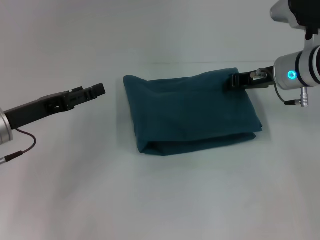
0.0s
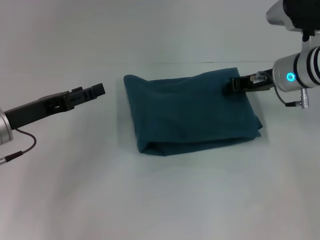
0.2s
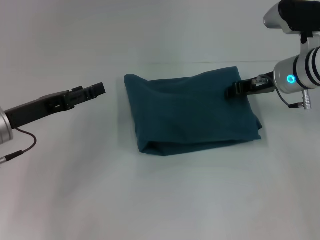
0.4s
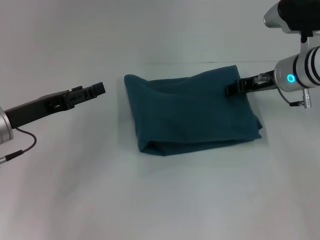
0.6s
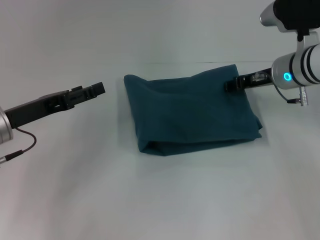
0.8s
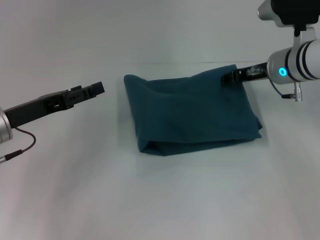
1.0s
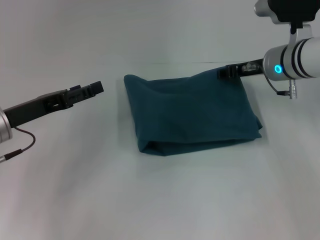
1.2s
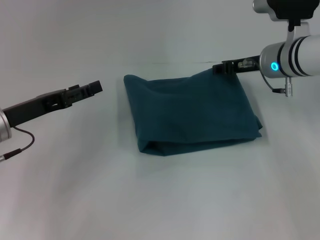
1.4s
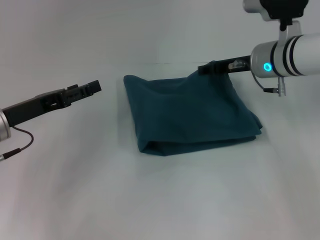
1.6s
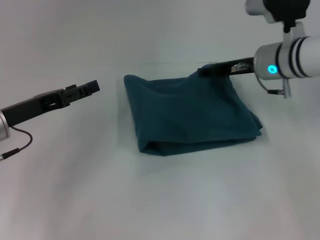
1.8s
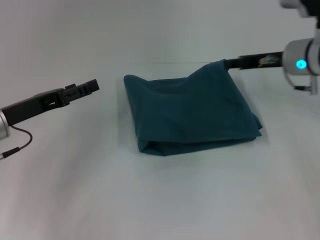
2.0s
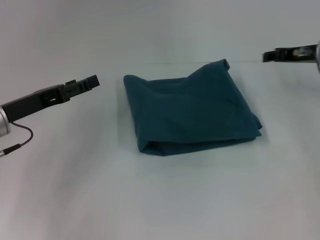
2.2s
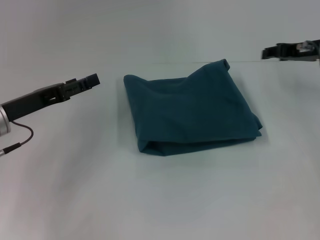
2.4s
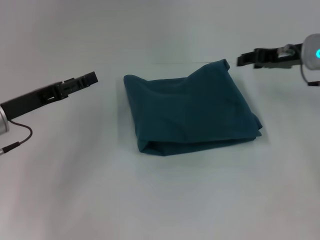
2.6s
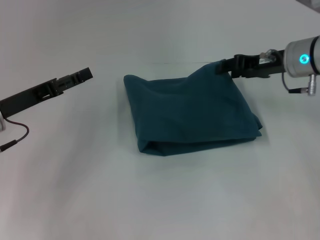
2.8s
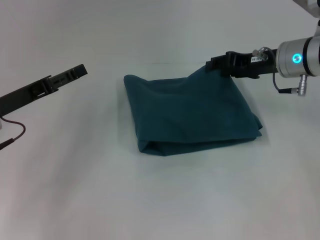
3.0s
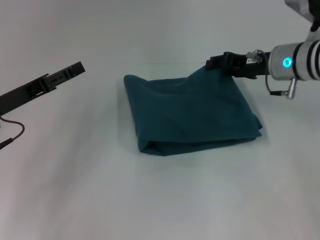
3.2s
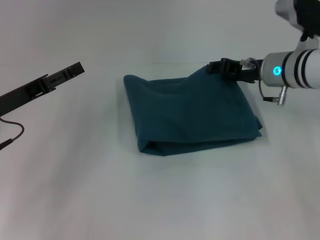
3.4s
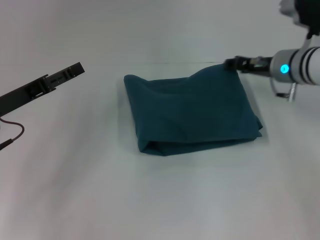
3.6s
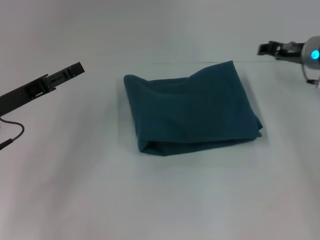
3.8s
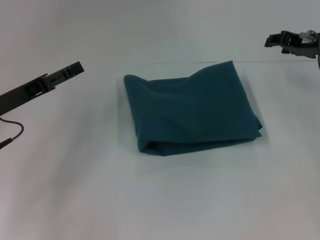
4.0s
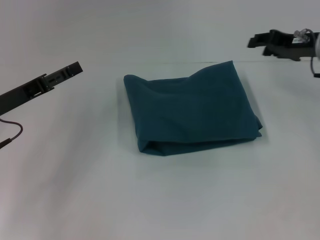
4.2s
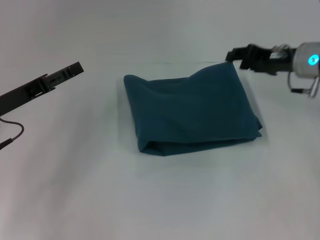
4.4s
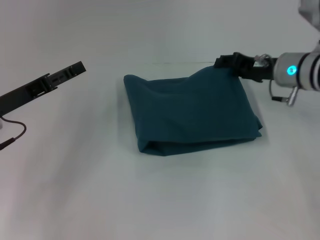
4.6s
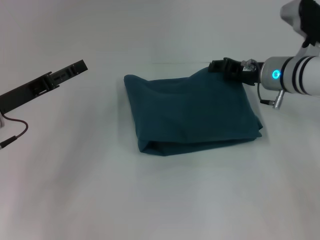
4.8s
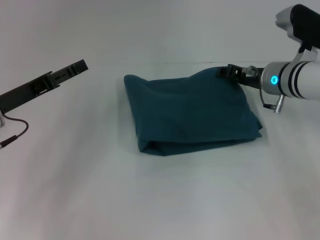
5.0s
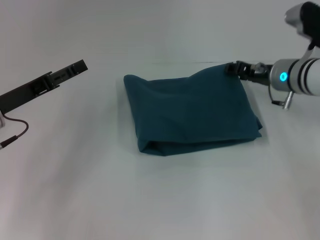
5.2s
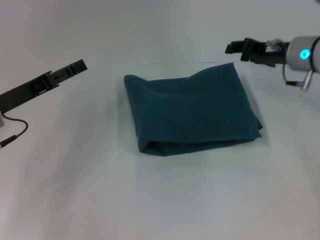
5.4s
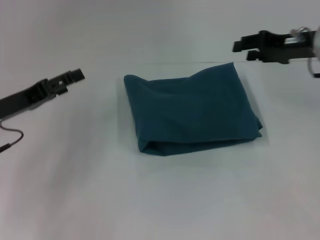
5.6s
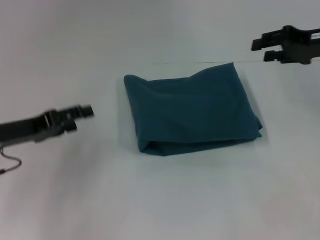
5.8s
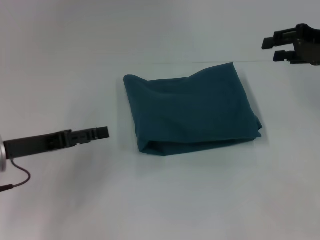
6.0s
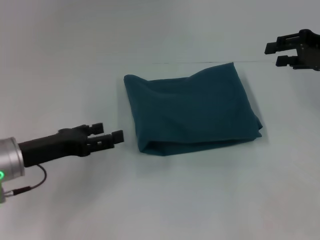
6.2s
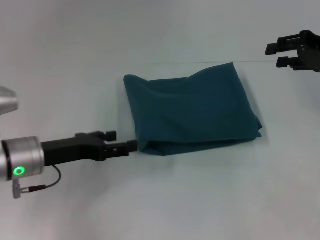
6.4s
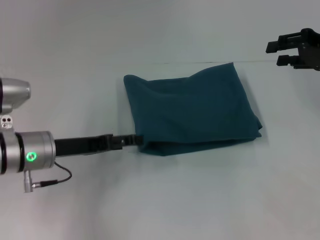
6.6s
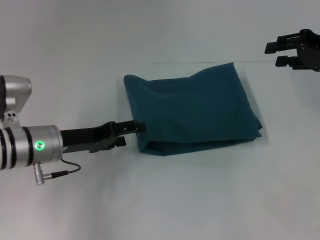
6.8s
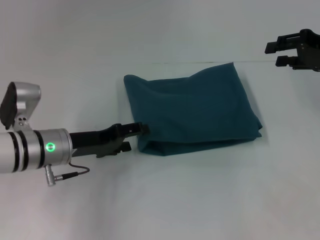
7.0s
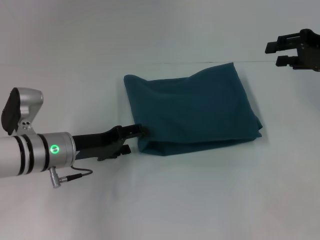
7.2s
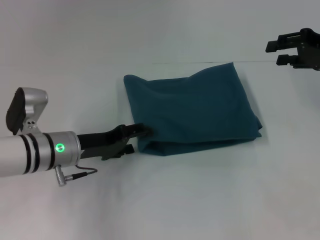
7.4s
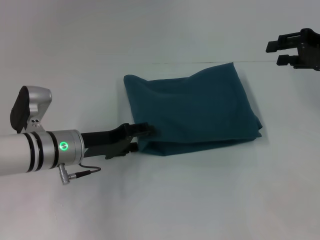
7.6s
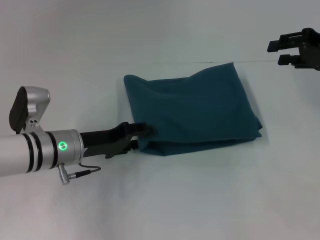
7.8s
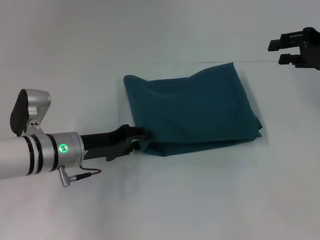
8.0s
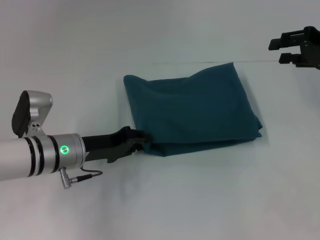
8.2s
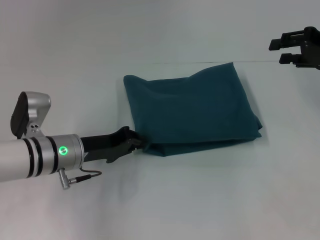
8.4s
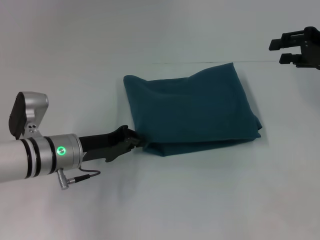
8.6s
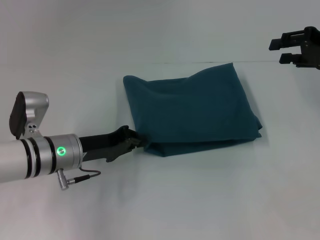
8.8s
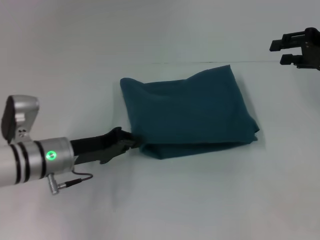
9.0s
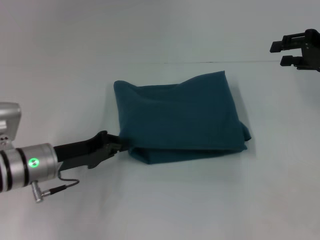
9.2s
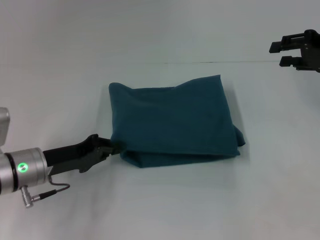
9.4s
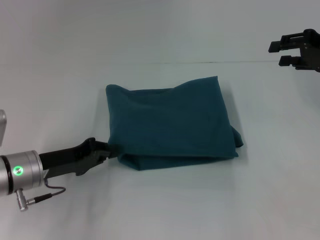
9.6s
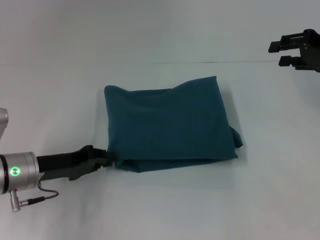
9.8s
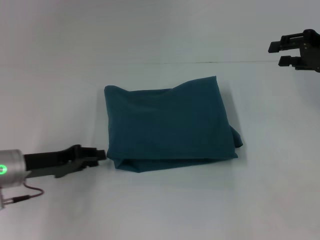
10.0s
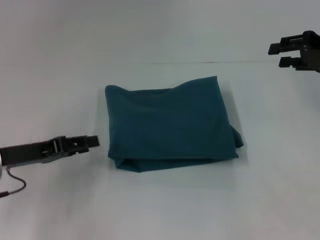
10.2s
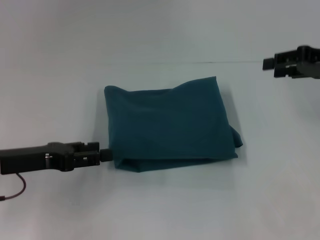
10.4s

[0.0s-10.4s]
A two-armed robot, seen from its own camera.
0.0s to 1.4s: The right gripper opens up.
1.4s to 3.0s: The right gripper goes to the right and returns, approximately 10 cm each way.
4.4s to 6.0s: The right gripper is displaced to the right and upward by about 10 cm.
6.0s to 7.4s: The left gripper heads to the right and downward, covering some 10 cm.
7.4s to 9.0s: The left gripper closes its fingers.
9.0s to 10.4s: The left gripper travels to the left and upward by roughly 10 cm, and opens up.

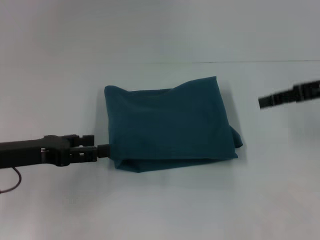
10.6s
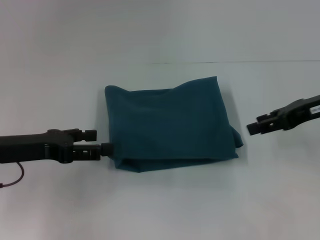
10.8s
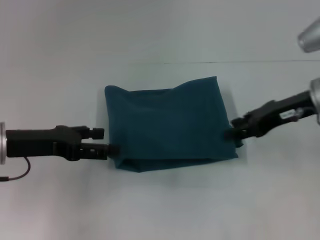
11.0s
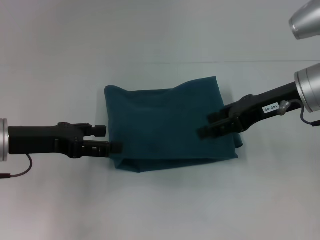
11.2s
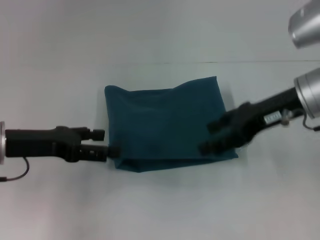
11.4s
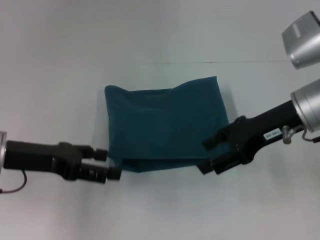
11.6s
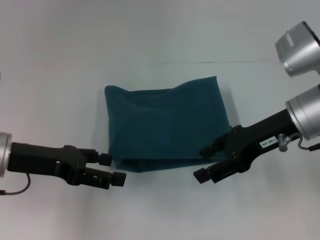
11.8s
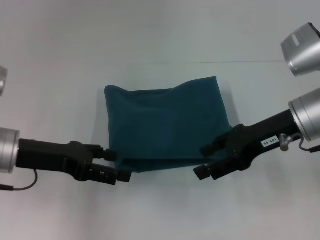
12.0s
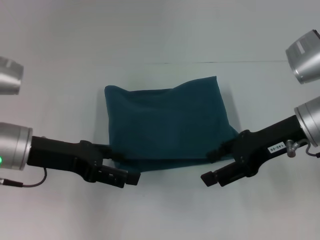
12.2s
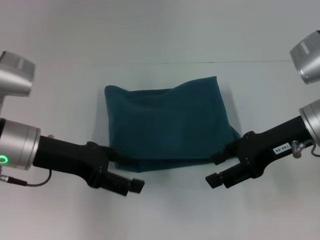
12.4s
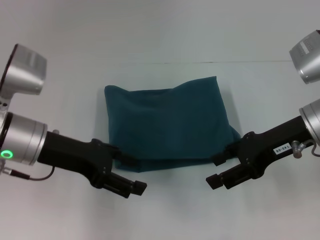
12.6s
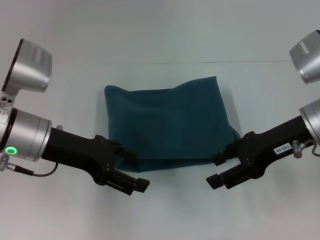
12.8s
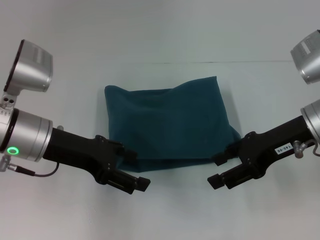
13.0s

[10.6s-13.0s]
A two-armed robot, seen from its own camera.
10.6s to 11.8s: The right gripper is displaced to the left by about 10 cm.
11.8s to 13.0s: The left gripper moves to the right, approximately 5 cm.

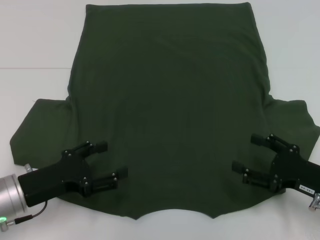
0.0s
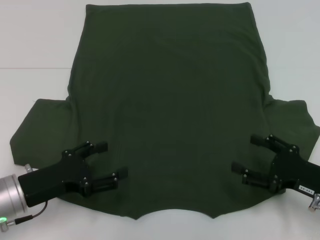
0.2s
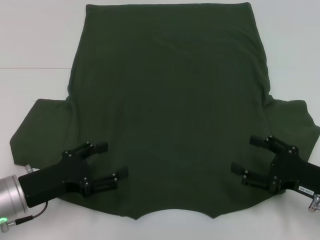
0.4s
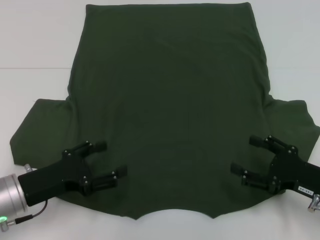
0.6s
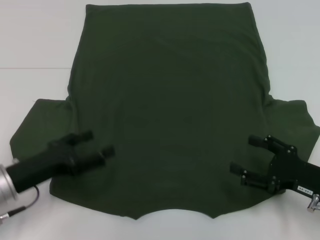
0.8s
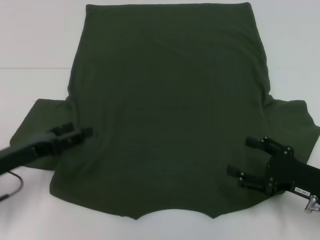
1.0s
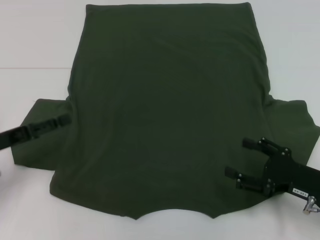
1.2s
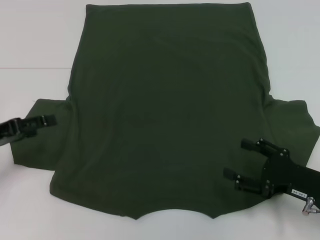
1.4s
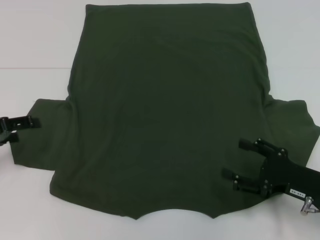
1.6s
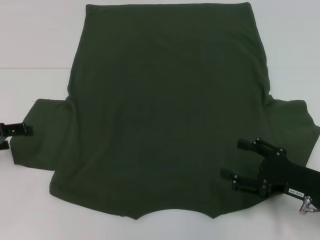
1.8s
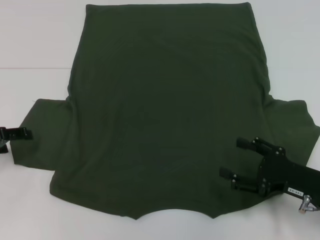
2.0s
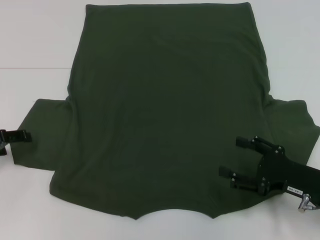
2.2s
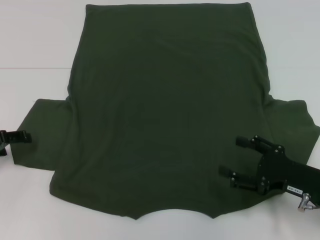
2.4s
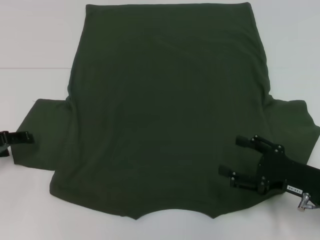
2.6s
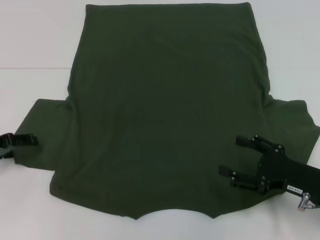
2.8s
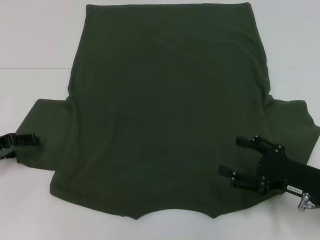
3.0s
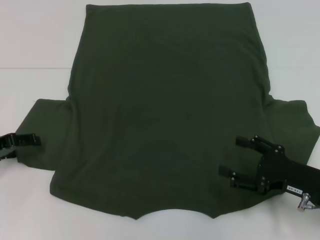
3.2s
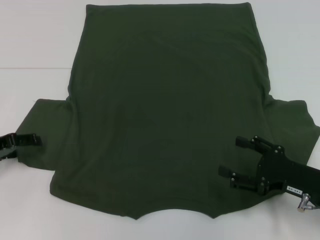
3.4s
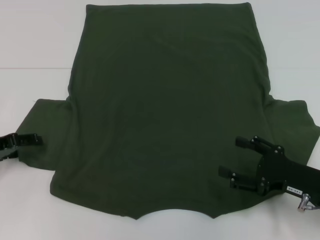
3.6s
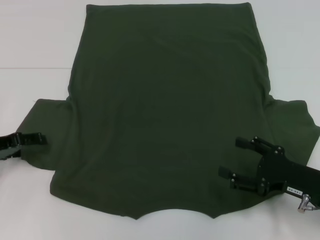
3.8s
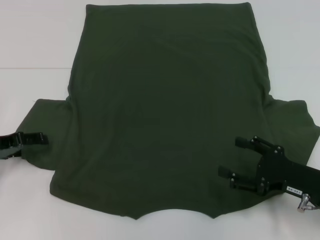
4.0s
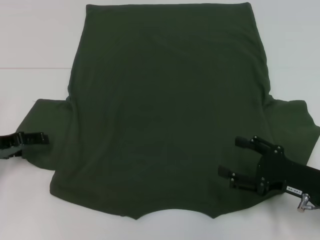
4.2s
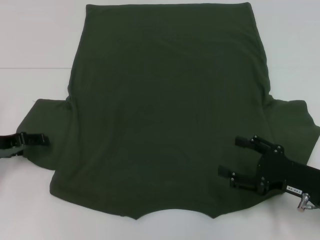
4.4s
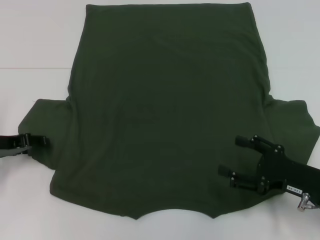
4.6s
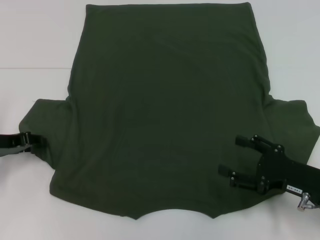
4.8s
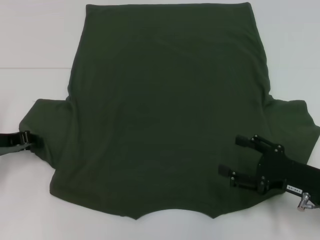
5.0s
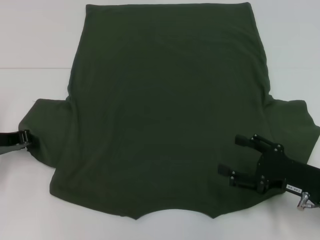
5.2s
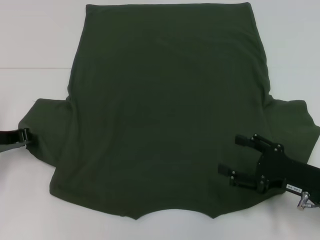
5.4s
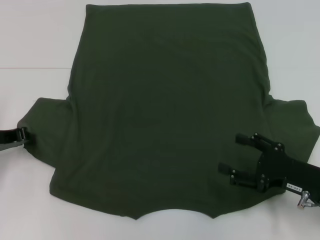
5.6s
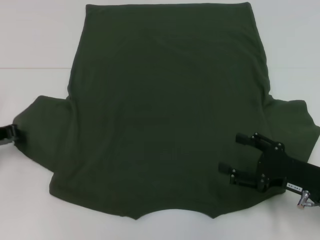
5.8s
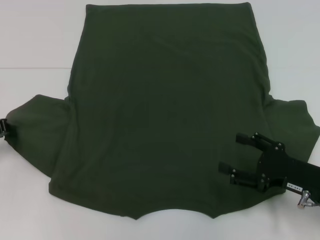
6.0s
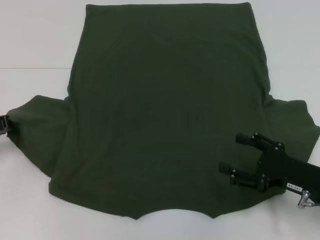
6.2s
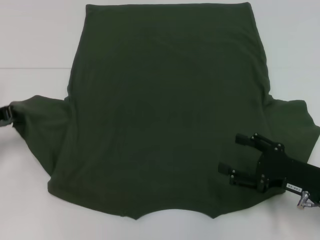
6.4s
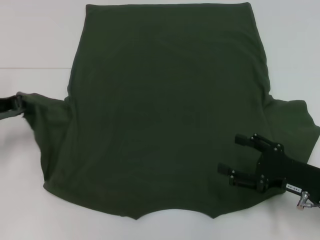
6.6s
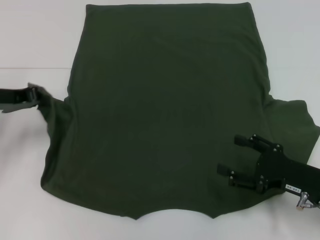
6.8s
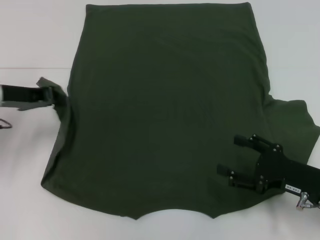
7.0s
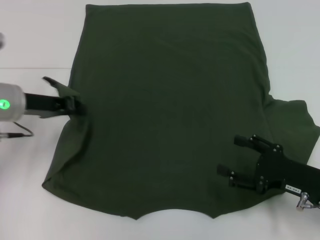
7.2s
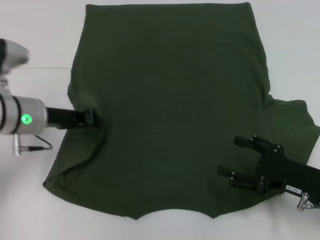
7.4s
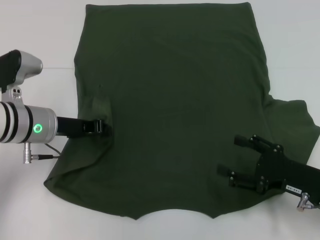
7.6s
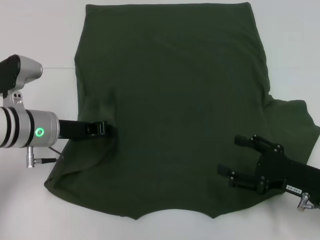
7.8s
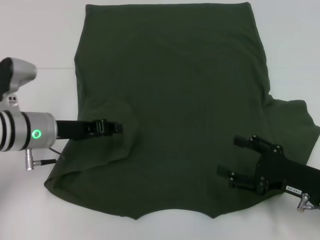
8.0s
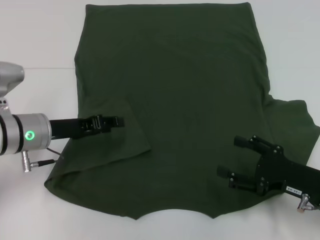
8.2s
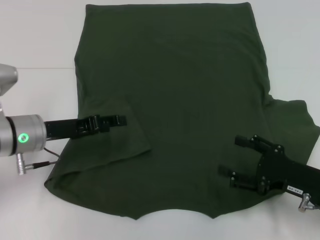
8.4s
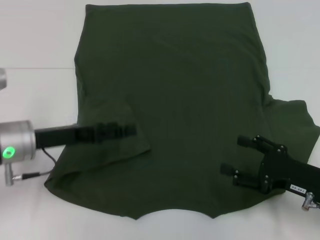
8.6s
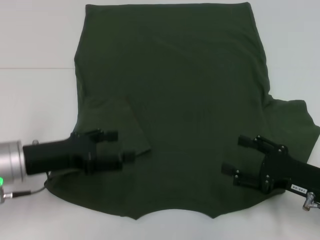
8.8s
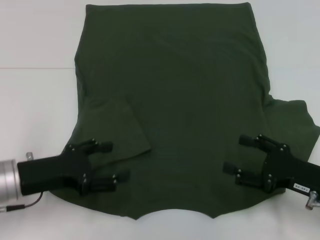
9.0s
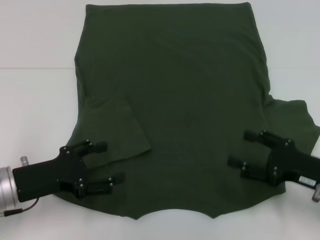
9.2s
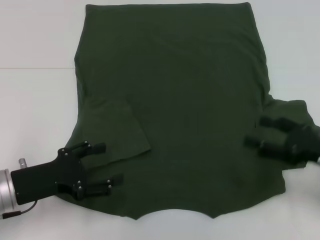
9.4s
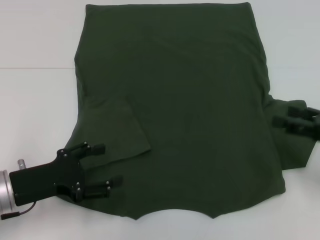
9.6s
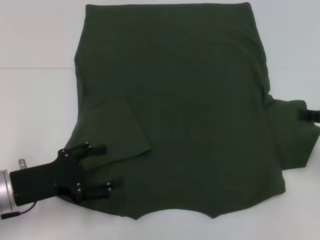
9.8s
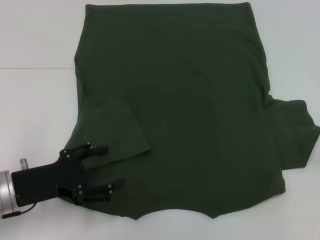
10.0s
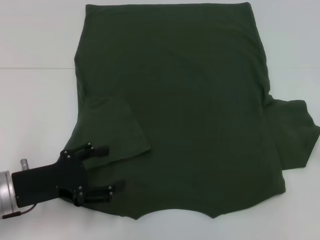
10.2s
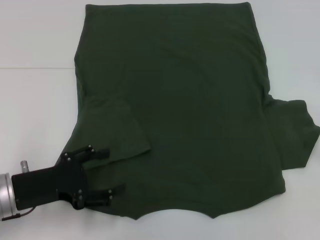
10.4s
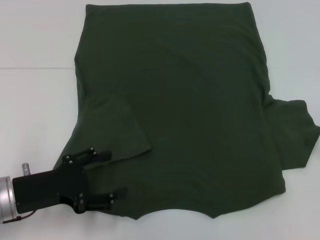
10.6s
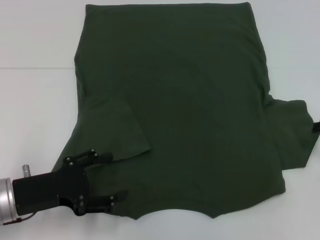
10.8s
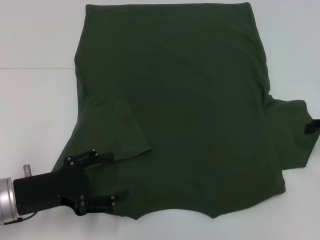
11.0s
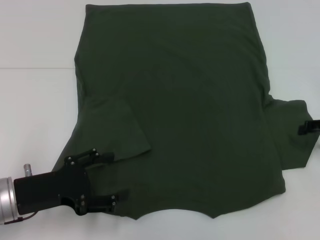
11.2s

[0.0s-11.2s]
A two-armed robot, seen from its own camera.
Step, 0.0s to 8.4s: Fold the bottom left sleeve with your left hand.
0.0s to 1.6s: The left gripper travels to the left, forward and upward by about 15 cm.
1.6s to 4.8s: The grippers move only a little.
4.8s to 6.4s: The left gripper closes.
6.4s to 8.0s: The left gripper goes about 15 cm to the right.
8.0s to 9.6s: The left gripper moves backward, approximately 10 cm, and opens its fingers. The right gripper shifts some 10 cm upward and to the right.
9.6s to 11.2s: The right gripper travels forward by roughly 5 cm.
